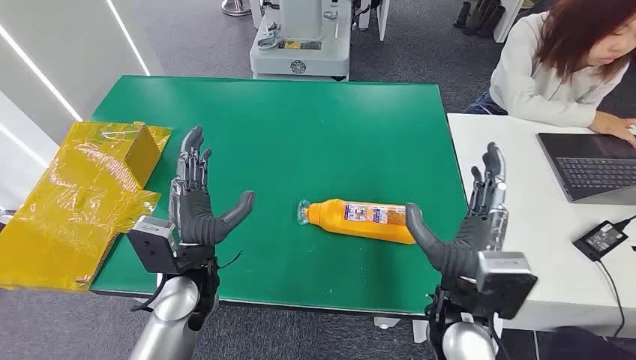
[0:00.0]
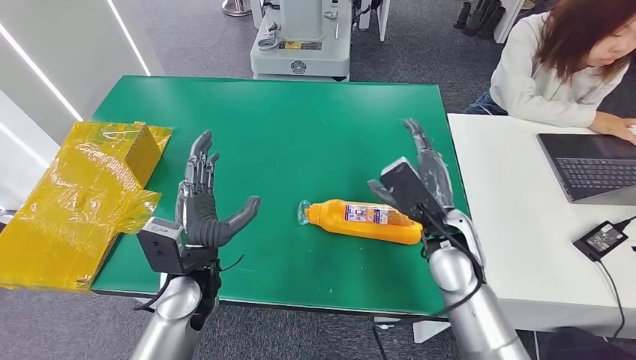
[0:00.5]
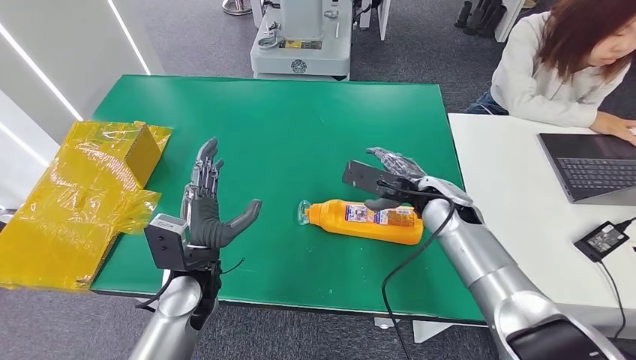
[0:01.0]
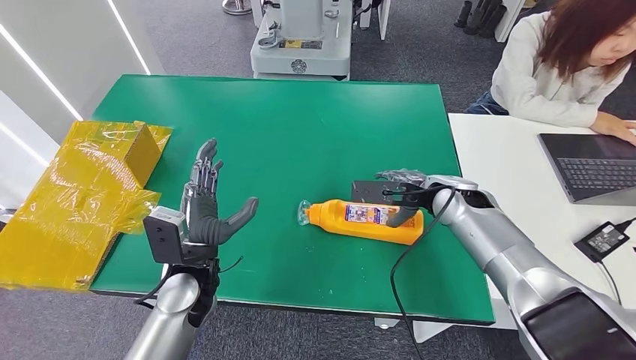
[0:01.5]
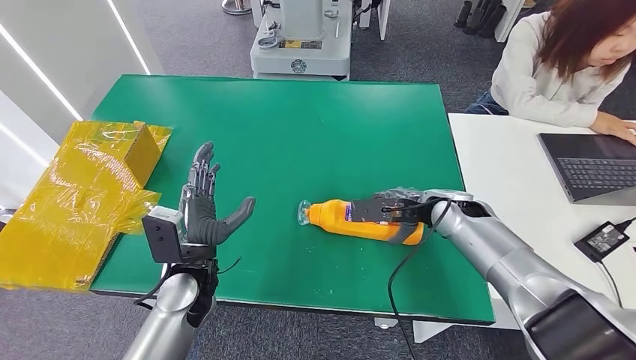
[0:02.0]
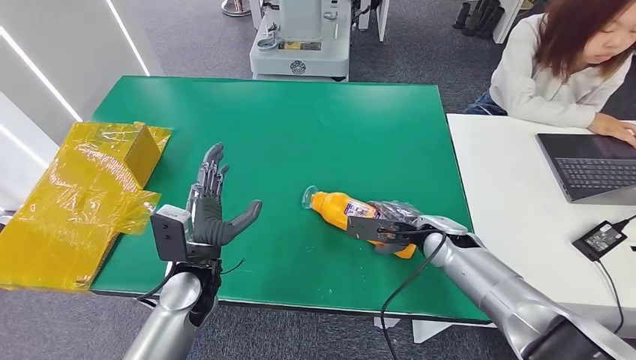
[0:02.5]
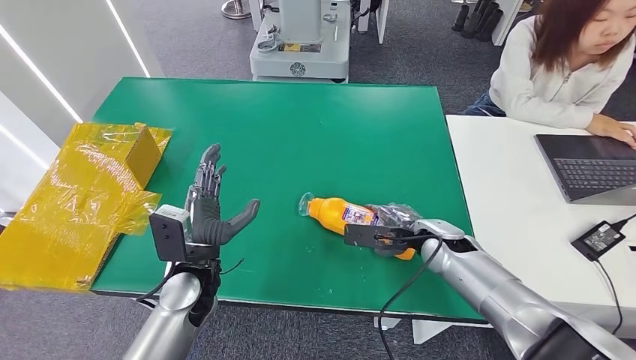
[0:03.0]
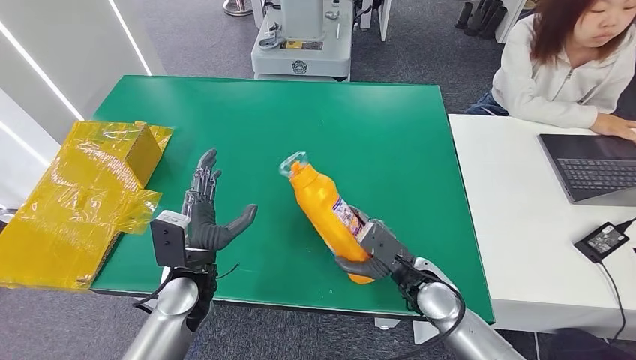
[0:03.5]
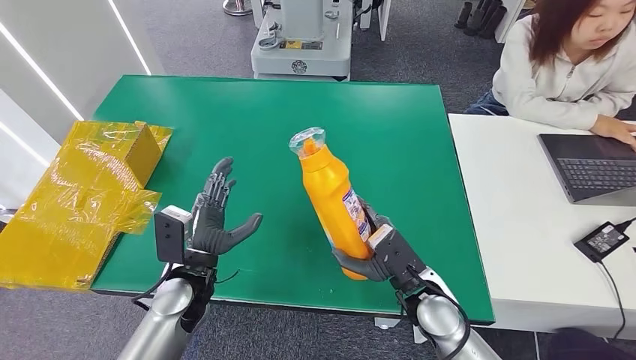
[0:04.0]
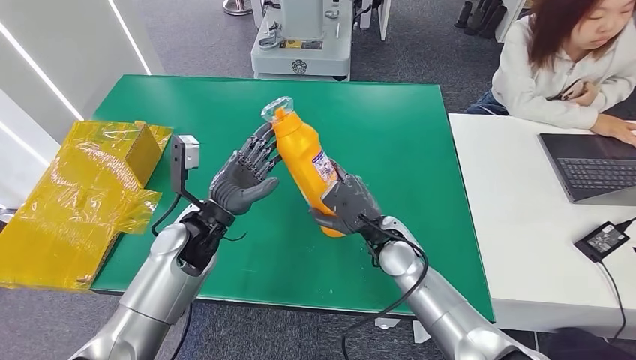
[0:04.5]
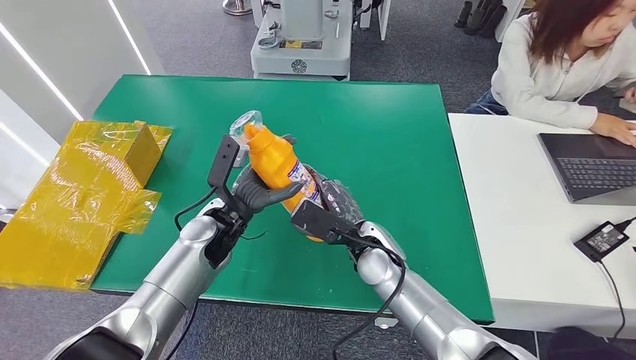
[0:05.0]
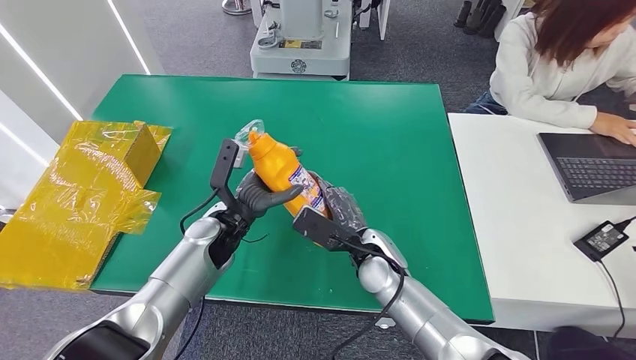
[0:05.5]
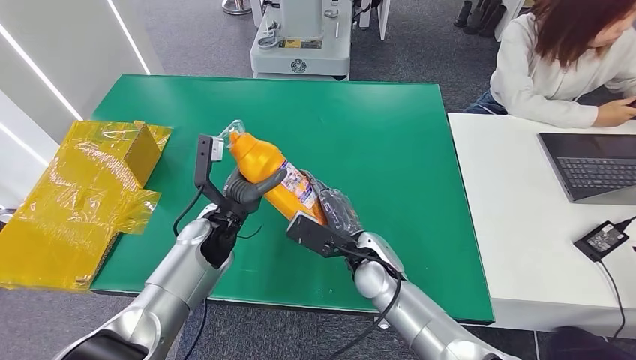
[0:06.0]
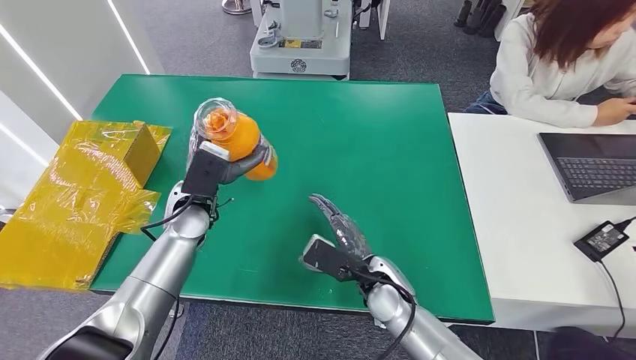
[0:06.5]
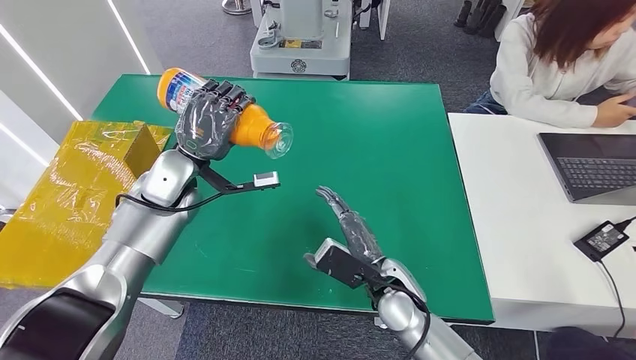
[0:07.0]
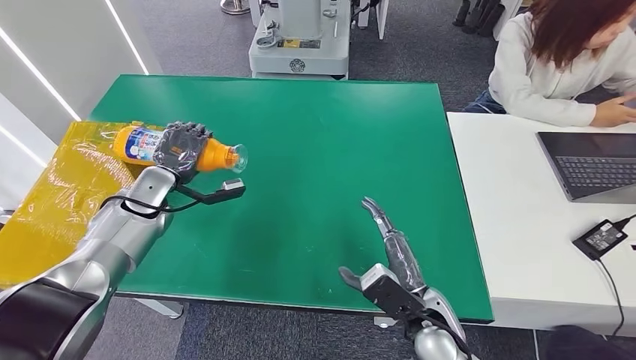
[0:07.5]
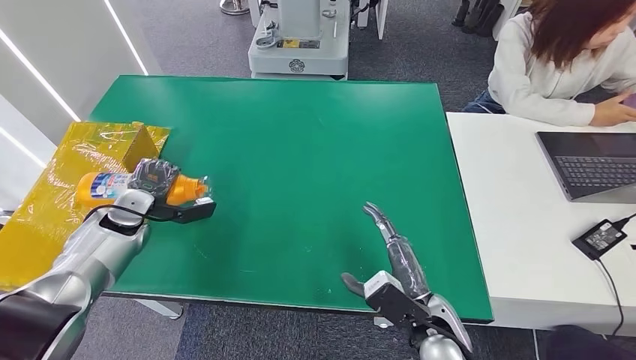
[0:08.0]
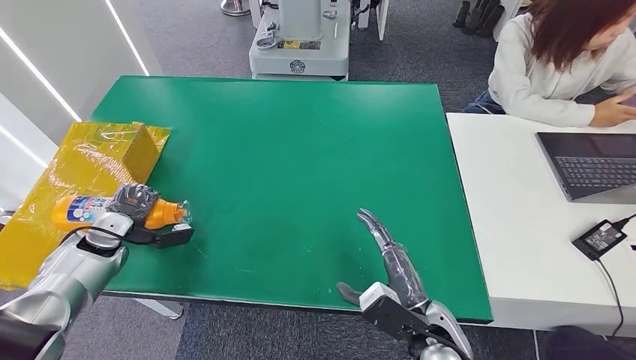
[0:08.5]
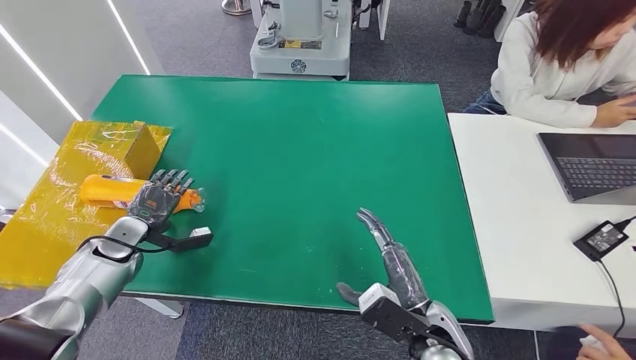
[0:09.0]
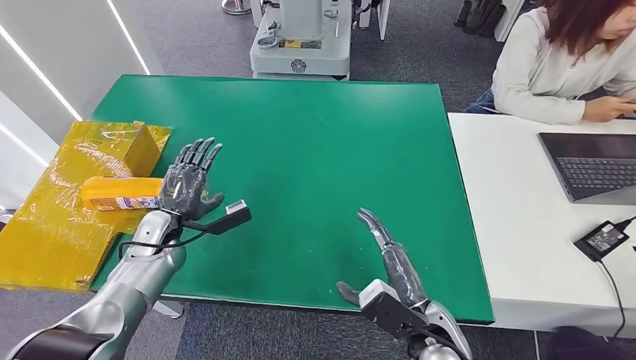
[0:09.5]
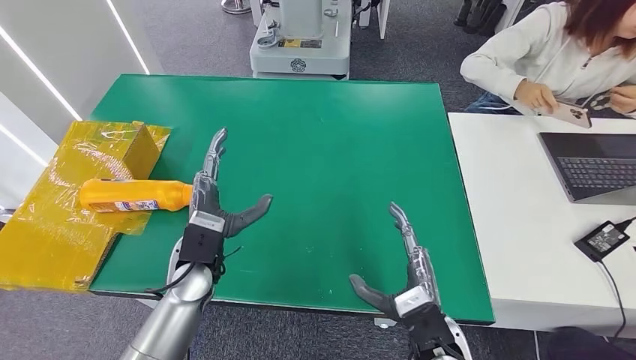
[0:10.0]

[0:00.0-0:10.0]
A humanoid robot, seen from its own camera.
Step, 0:00.0 to 0:04.5: Pick up the bottle from the table.
Step, 0:06.0 to 0:10.0: Turn the bottle to the front side.
0:02.0 to 0:04.0: The right hand is displaced backward, to the left and downward by roughly 20 cm.
0:04.0 to 0:06.0: The left hand travels forward by some 10 cm; the right hand goes approximately 10 cm to the left and forward.

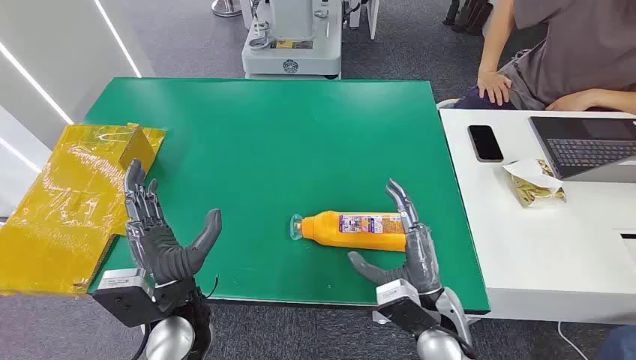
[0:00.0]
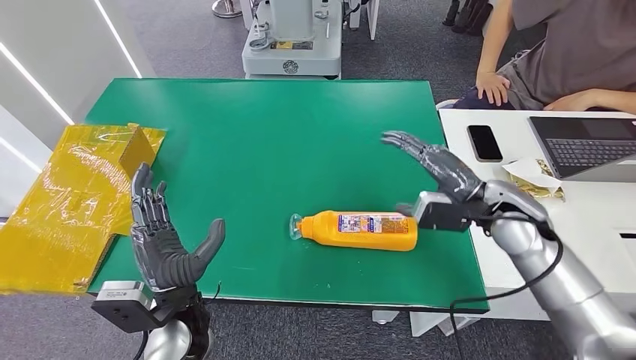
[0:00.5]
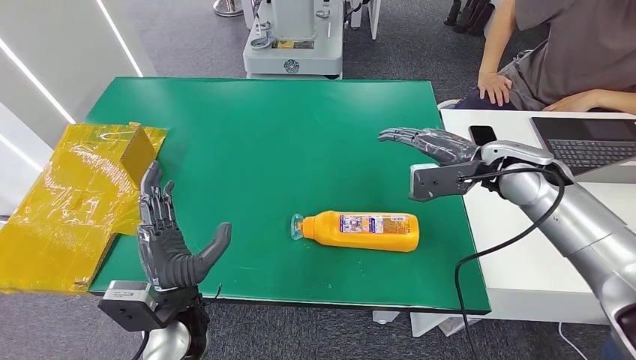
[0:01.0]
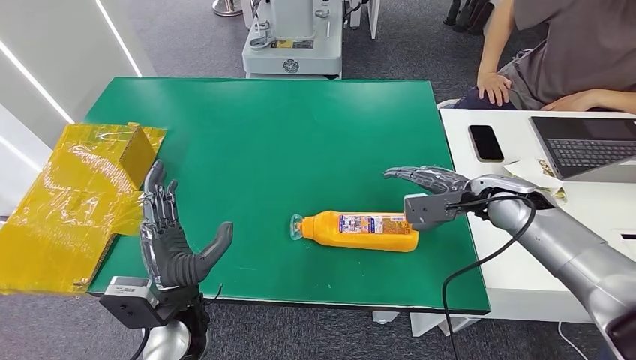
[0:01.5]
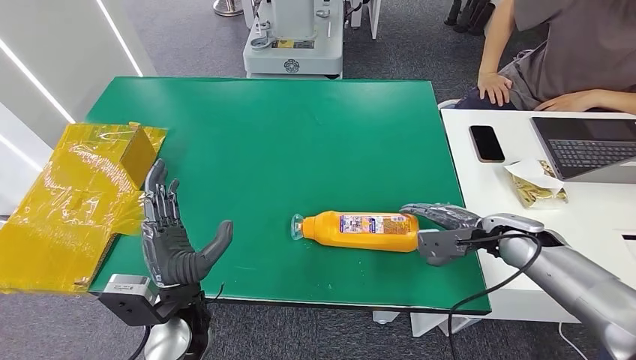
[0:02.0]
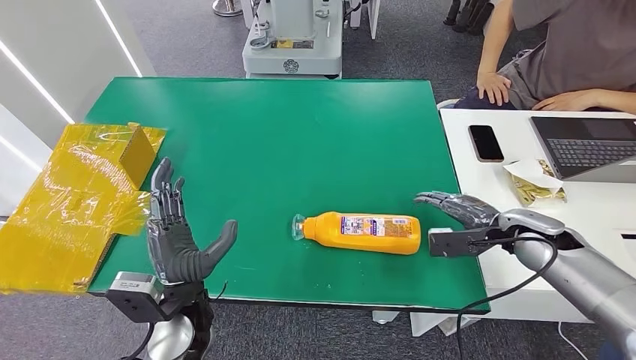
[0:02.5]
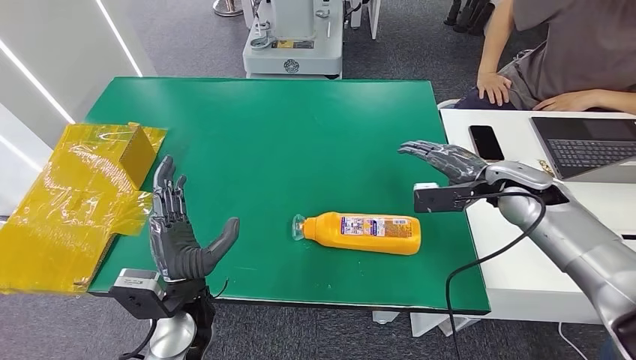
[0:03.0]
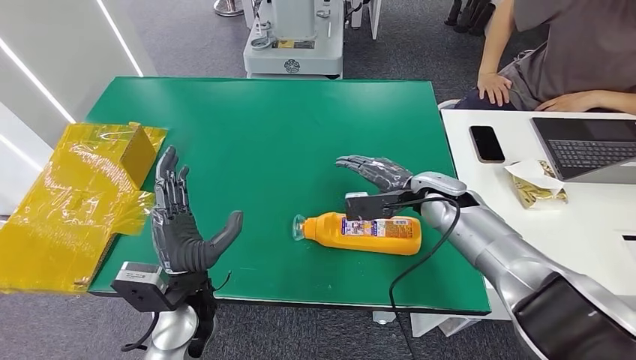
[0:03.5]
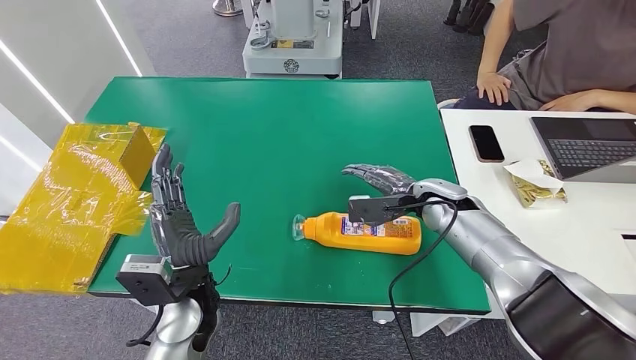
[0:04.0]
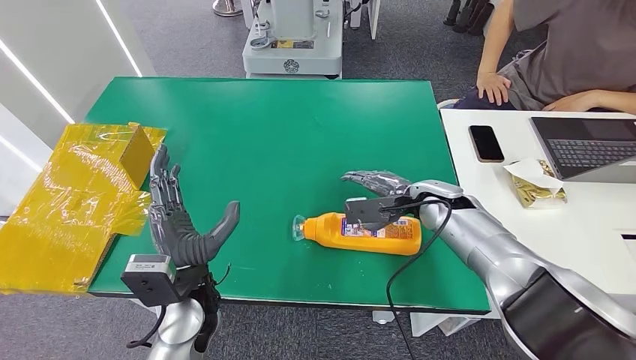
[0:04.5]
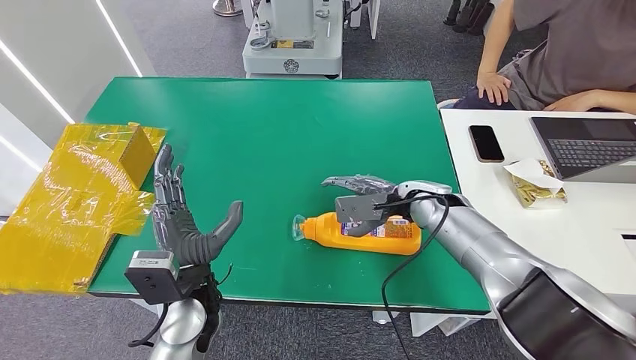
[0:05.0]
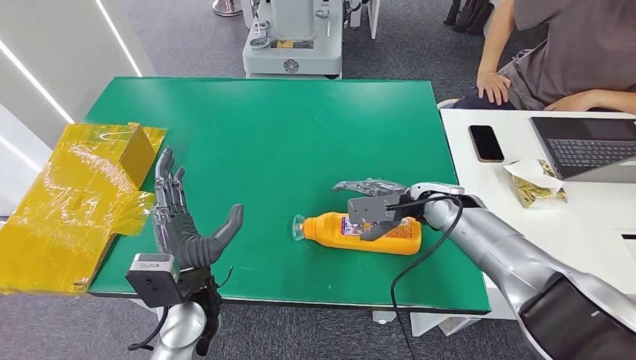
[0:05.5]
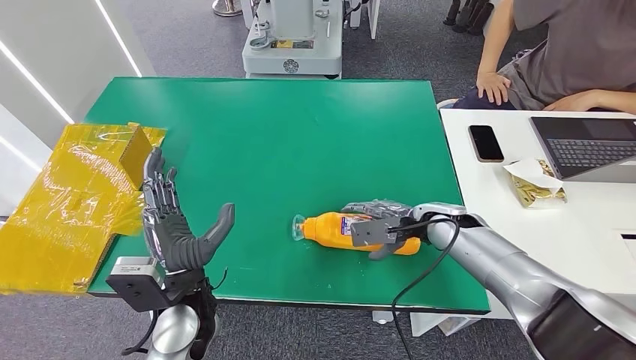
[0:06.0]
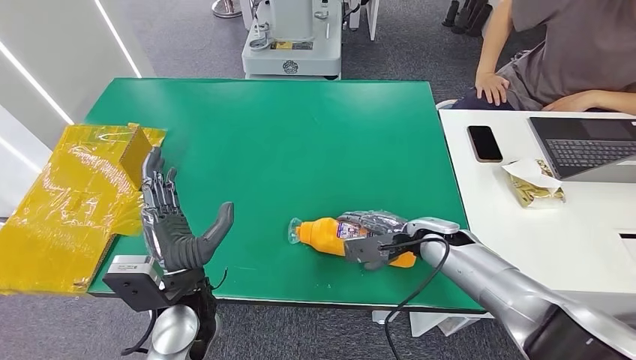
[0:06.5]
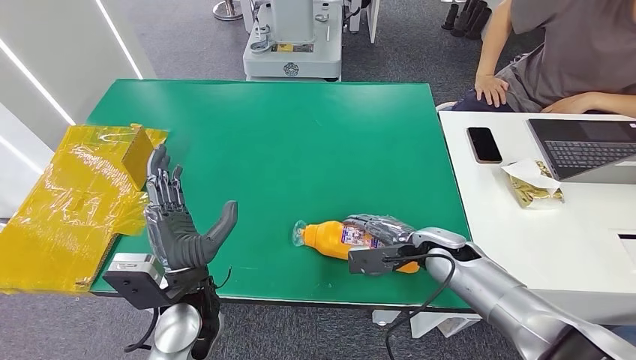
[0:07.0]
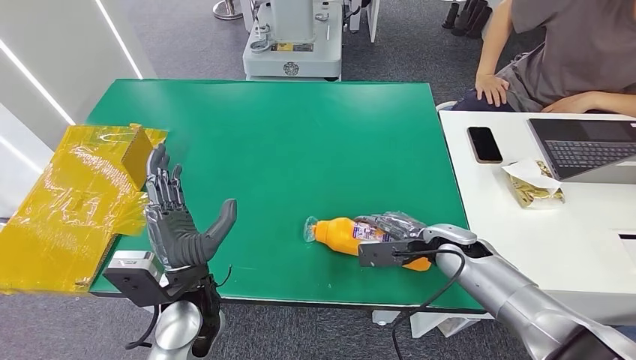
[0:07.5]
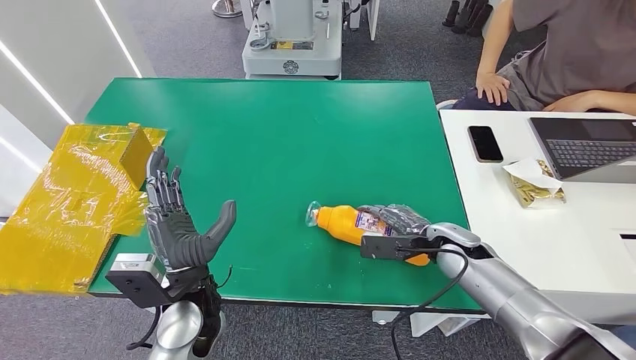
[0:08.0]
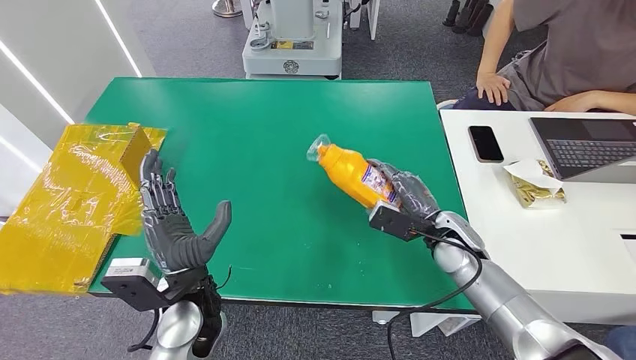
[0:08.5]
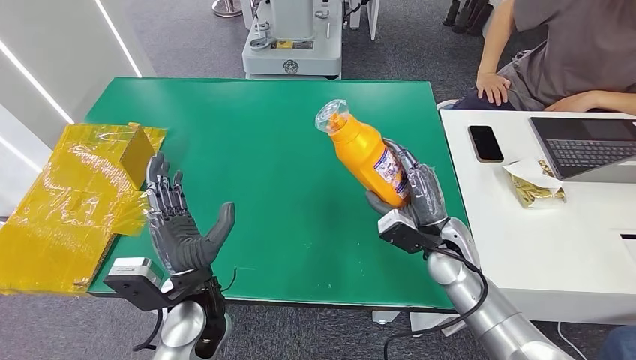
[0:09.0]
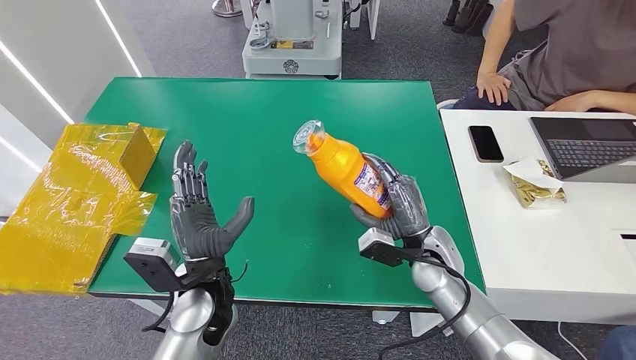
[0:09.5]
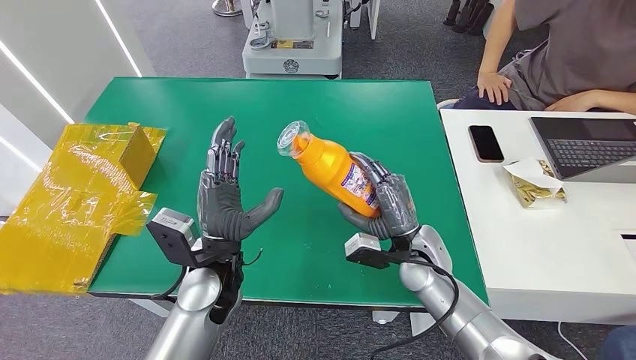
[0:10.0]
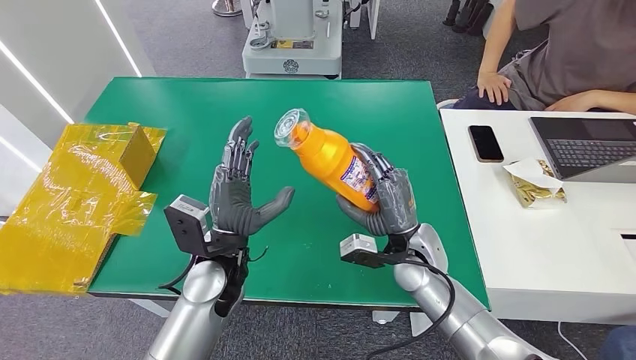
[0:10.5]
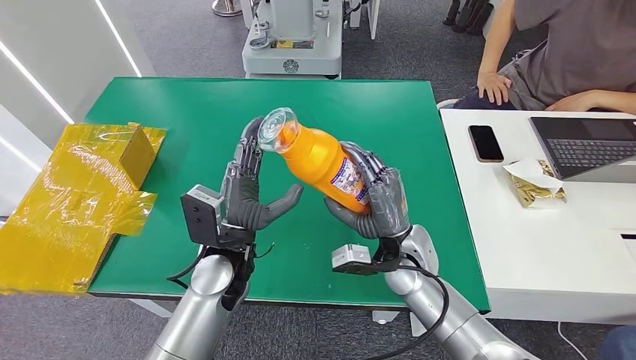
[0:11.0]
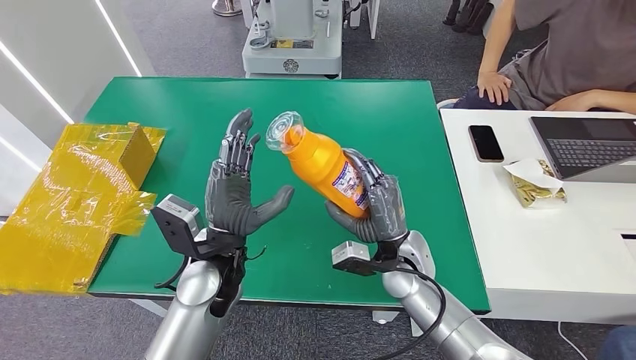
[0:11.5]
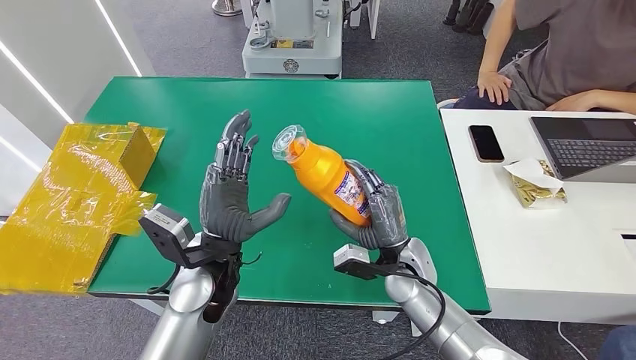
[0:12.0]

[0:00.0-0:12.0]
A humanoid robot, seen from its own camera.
Step, 0:00.0 to 0:09.0: Pick up the bottle from the table.
0:02.0 to 0:04.0: The right hand heads to the left and forward, covering about 15 cm.
0:04.0 to 0:06.0: The hands stay close to where they were, moving slightly.
0:06.0 to 0:08.0: The right hand moves roughly 5 cm.
0:08.0 to 0:10.0: The right hand moves to the left, some 10 cm. The left hand moves approximately 5 cm.
0:10.0 to 0:12.0: The hands stay close to where they were, moving slightly.
